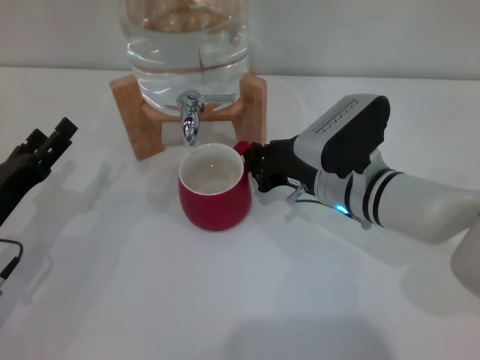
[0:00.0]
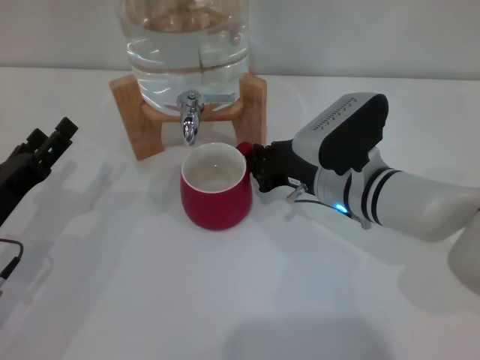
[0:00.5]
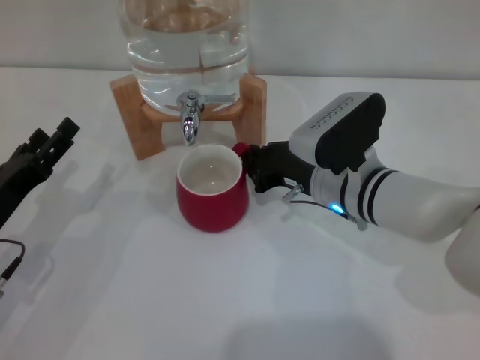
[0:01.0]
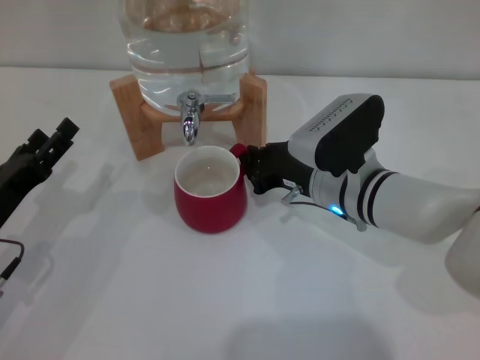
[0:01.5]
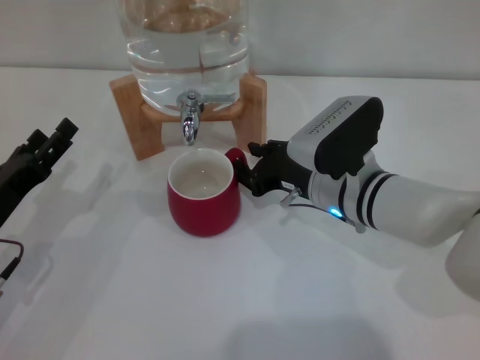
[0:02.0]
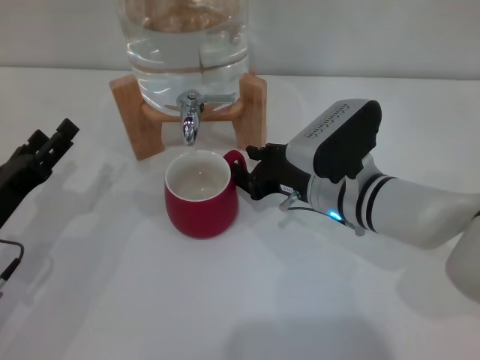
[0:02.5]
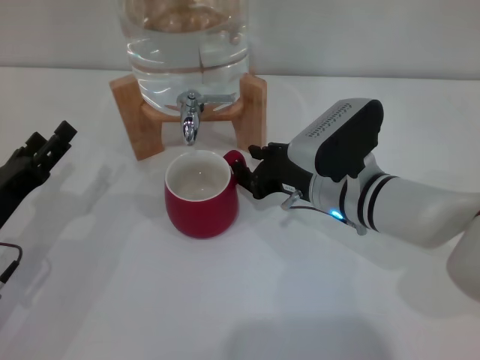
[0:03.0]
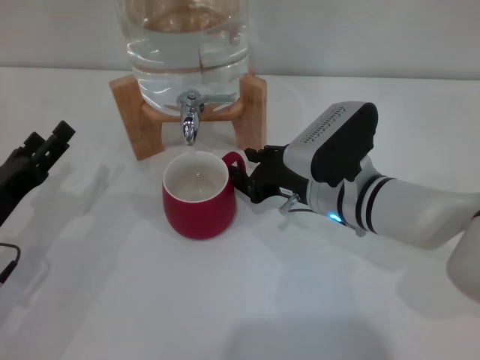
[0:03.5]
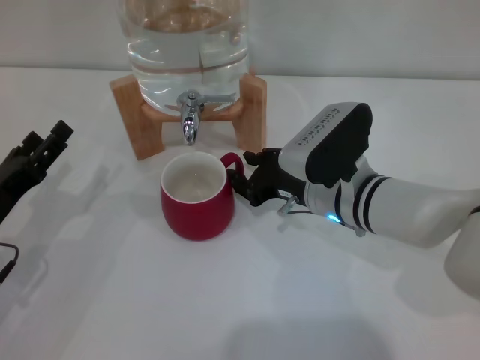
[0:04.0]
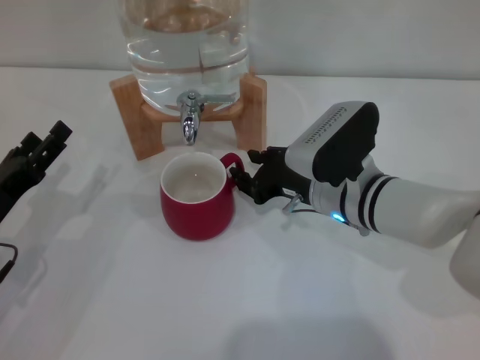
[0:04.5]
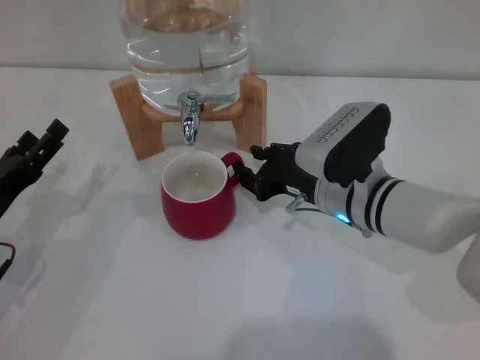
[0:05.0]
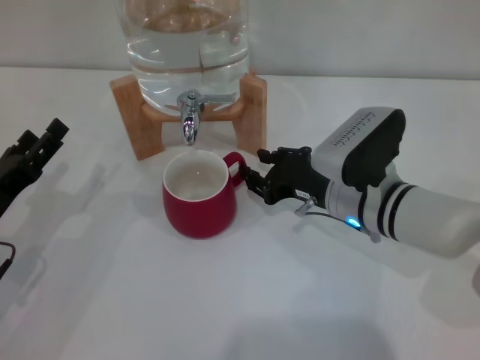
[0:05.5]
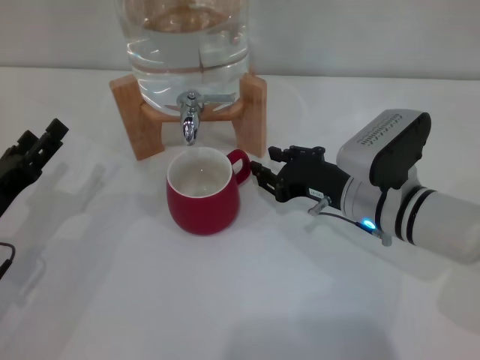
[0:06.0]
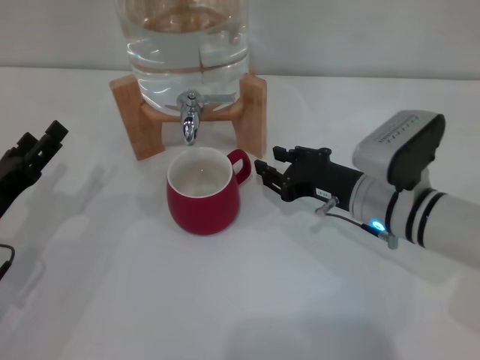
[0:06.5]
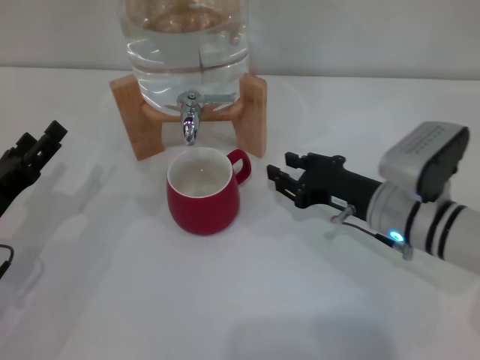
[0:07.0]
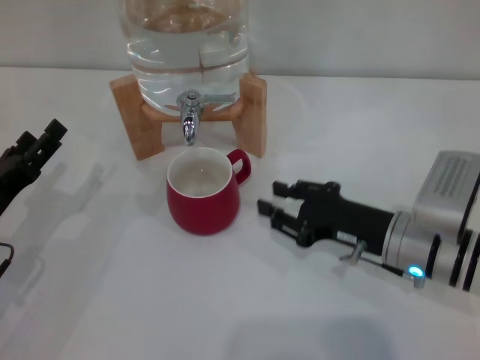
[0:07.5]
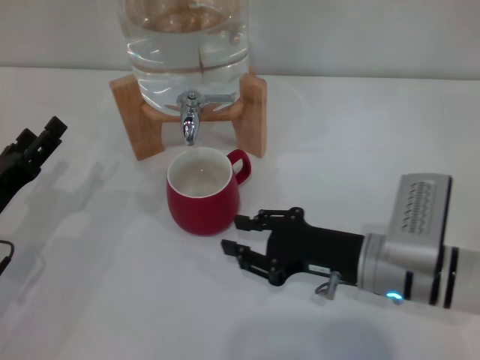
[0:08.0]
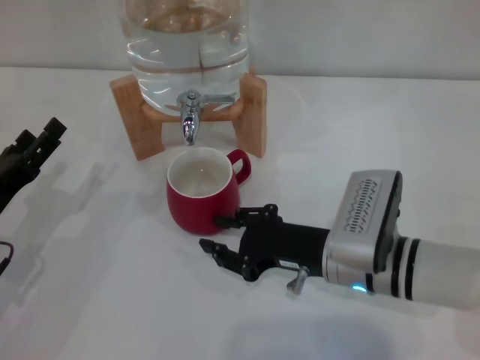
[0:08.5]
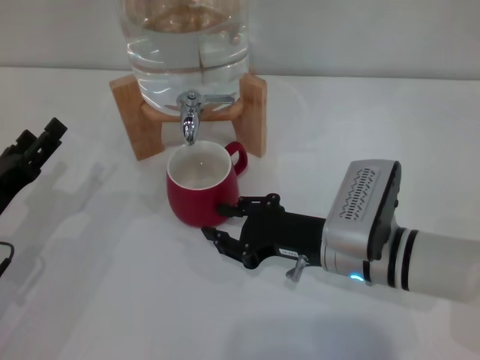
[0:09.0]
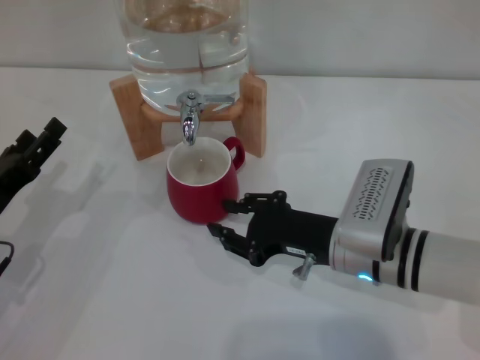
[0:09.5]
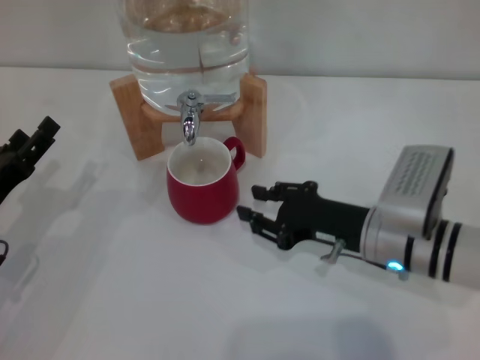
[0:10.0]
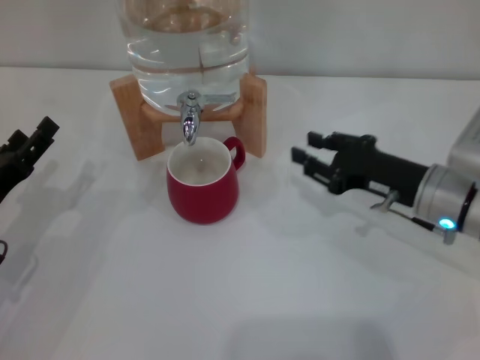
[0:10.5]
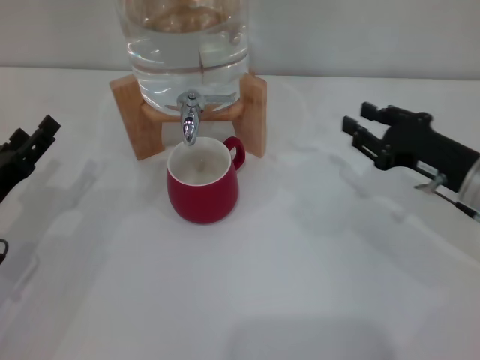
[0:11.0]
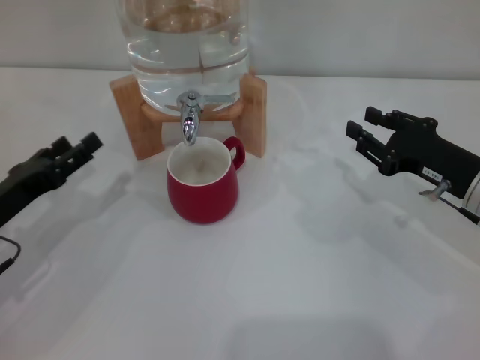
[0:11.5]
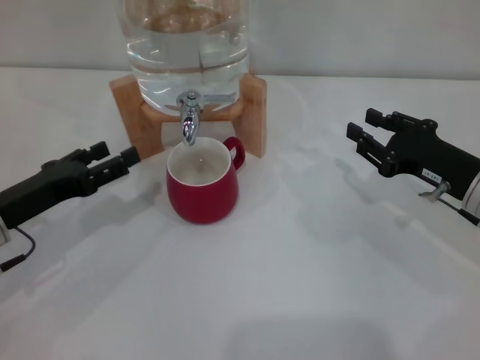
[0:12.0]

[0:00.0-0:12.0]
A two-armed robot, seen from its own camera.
Task of the whole recording: the right gripper pick up the red cup and place it horizontally under the faucet, the left gripper turn on the faucet to fill the cup, and then turn off the faucet.
Step, 0.0 to 6.0 s: Move the cup beneath the water dispenser nozzle with the right gripper.
0.0 to 4.0 s: Both grippers stay about where they are.
4.0 to 6.0 s: The grippers move only a little.
6.0 to 8.0 s: The right gripper shifts some 5 cm backward.
8.0 to 10.0 s: The grippers move only a little.
10.0 to 12.0 s: The right gripper goes some 10 cm to the right.

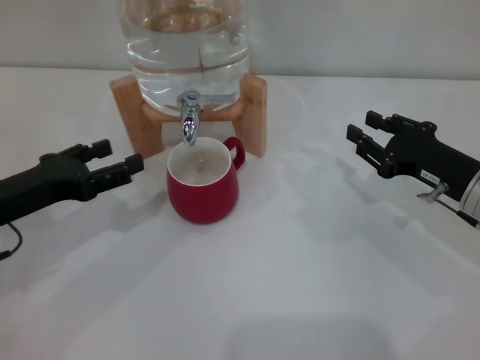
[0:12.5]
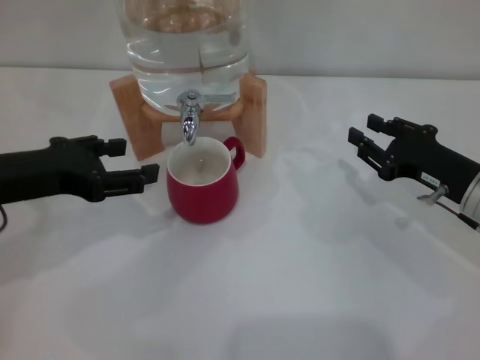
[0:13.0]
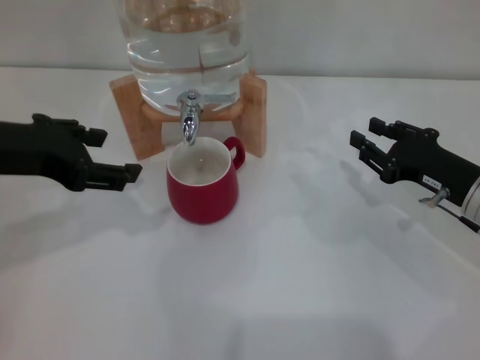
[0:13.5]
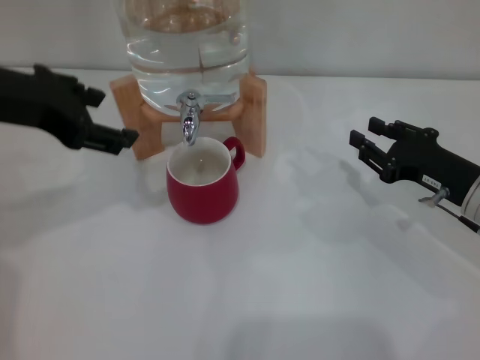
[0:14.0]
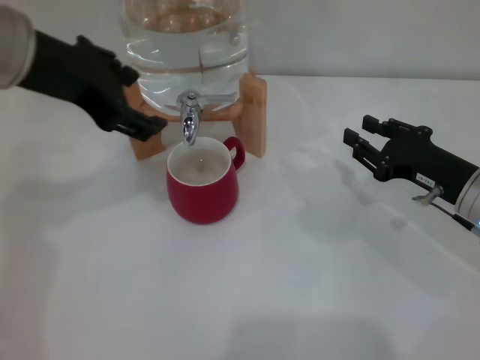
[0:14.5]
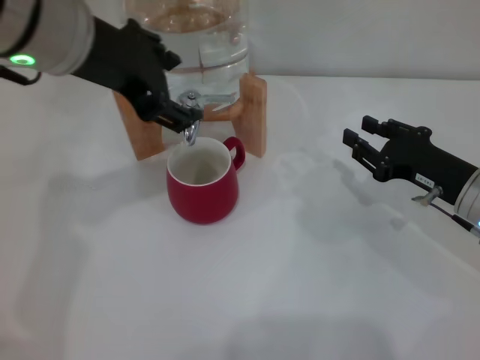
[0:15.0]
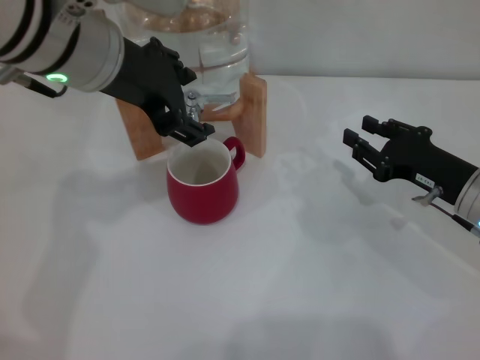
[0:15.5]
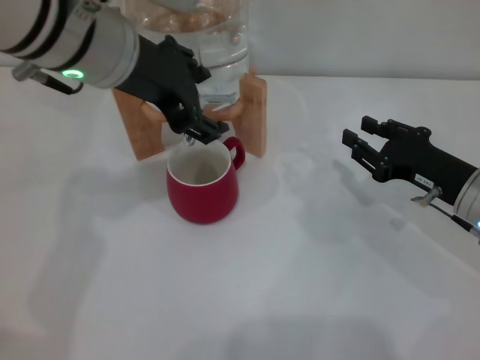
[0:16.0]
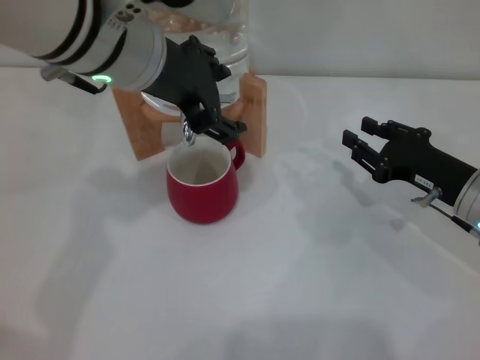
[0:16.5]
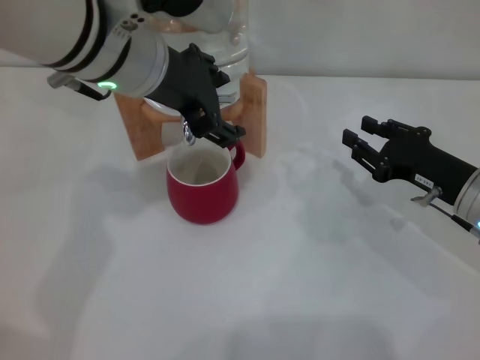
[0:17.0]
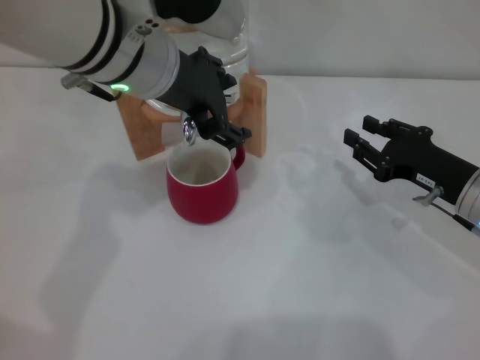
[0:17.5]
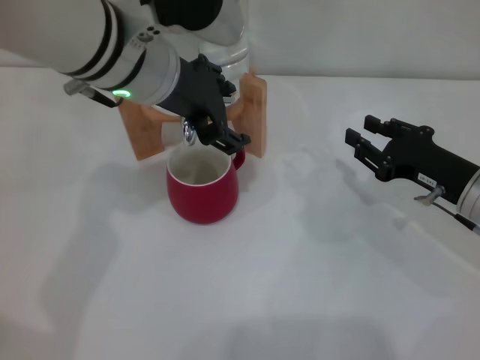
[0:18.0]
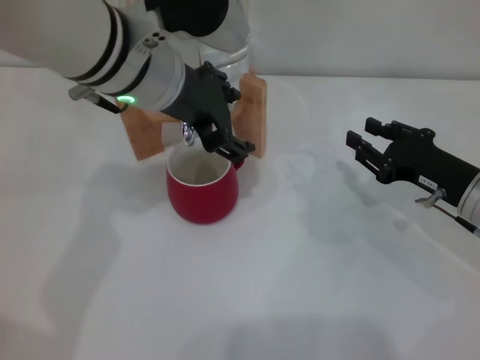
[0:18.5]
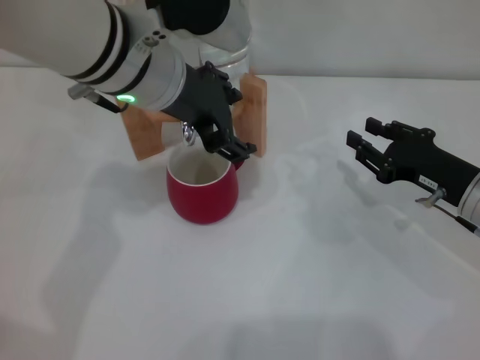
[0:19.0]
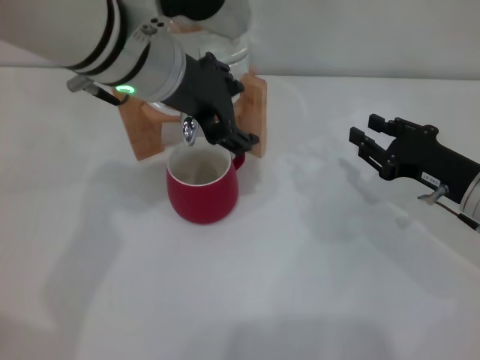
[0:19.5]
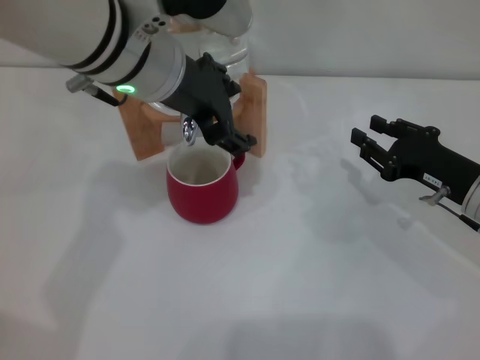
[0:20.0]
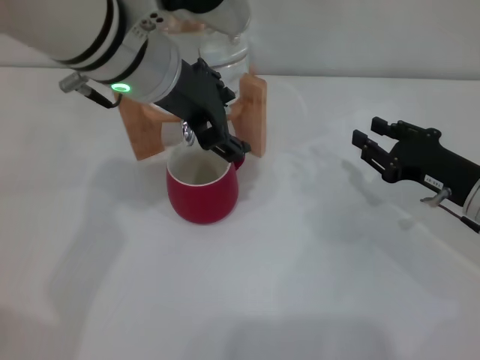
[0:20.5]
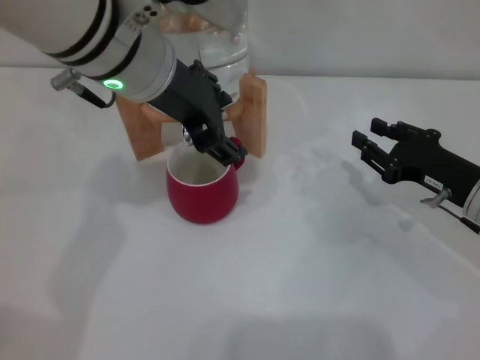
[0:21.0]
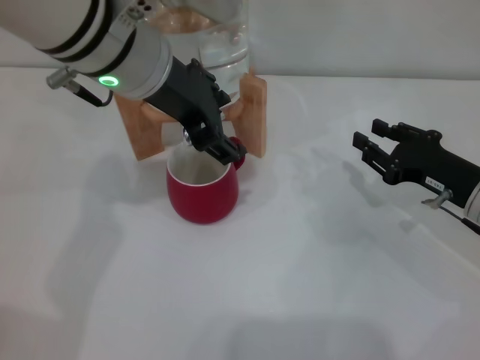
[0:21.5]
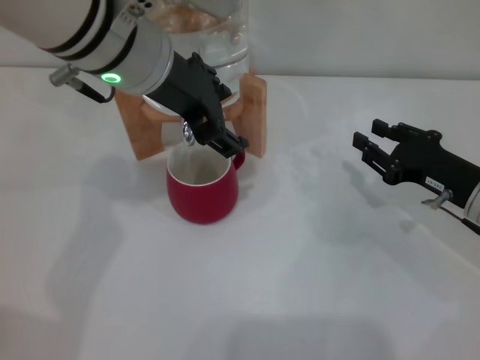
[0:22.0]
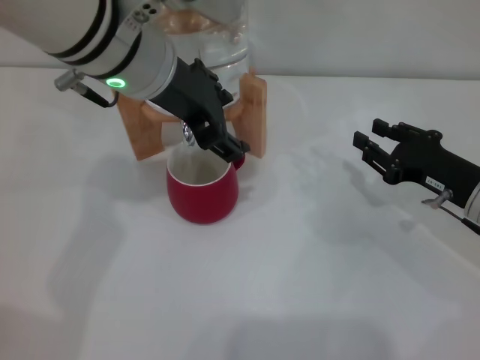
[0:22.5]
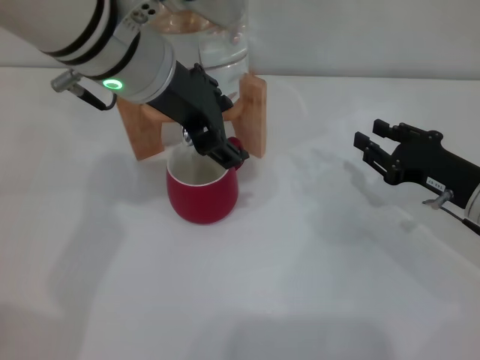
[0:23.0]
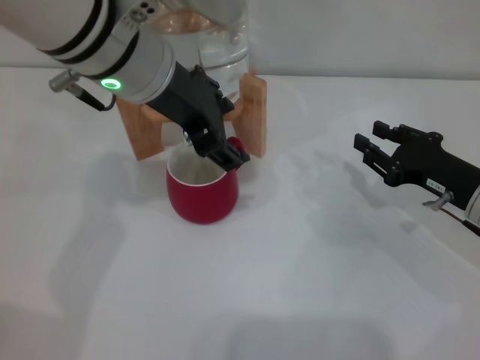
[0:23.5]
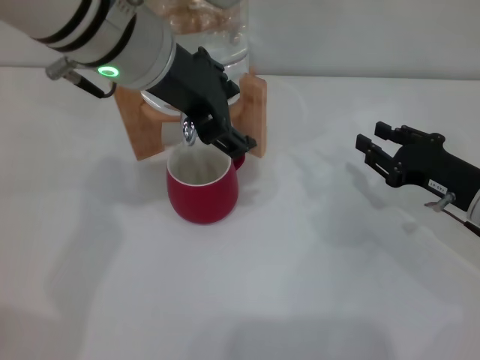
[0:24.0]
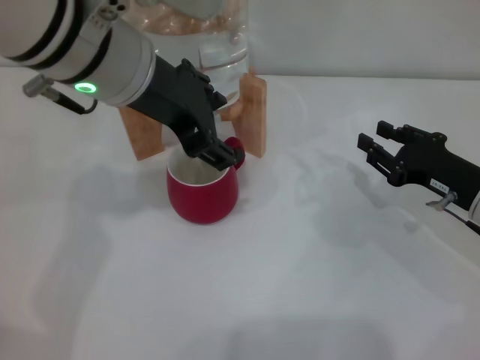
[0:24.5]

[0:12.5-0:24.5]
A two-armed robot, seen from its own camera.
Task of the whole recording: the right gripper pick up the red cup and place it horizontally under the faucet, the left gripper turn on the faucet to fill the cup, and then turn off the faucet.
Step, 12.5 to 22.0 s: Open the dispenser valve and fill the cup with water with the left gripper.
12.5 to 14.5 s: The left gripper goes about 20 cm upward and to the right.
14.5 to 16.5 s: The left gripper moves to the right, approximately 10 cm.
16.5 to 20.5 s: The grippers move only a little.
20.5 to 22.5 s: The two grippers keep their place.
22.5 to 24.5 s: The grippers make only small movements.

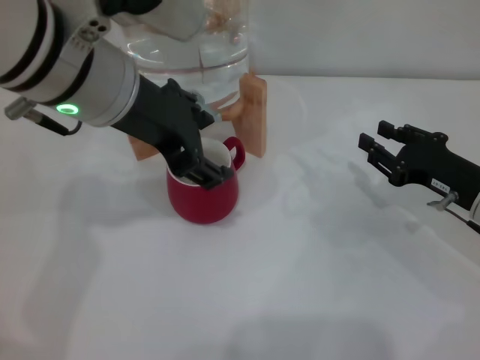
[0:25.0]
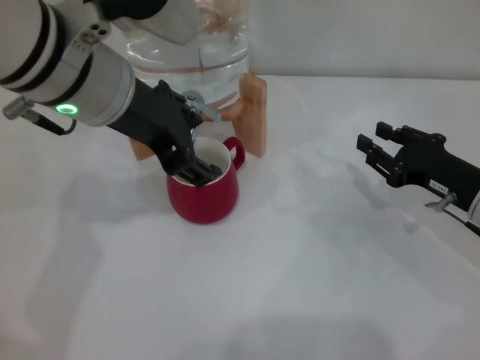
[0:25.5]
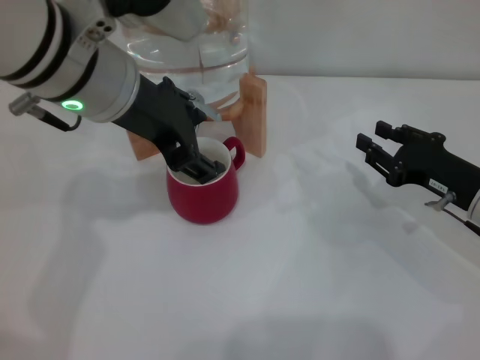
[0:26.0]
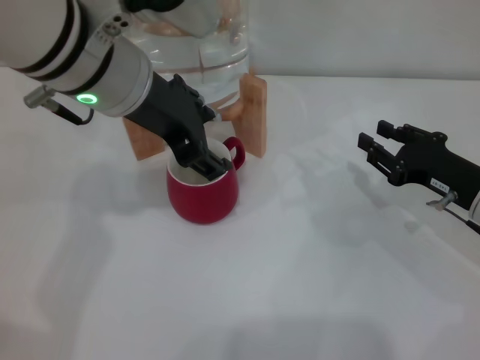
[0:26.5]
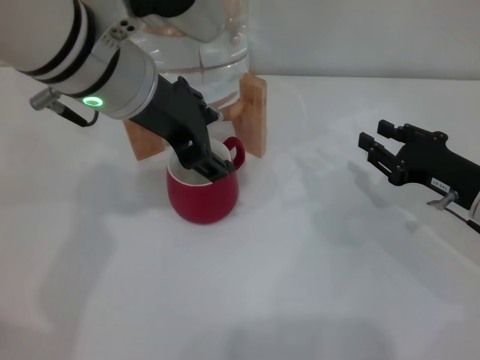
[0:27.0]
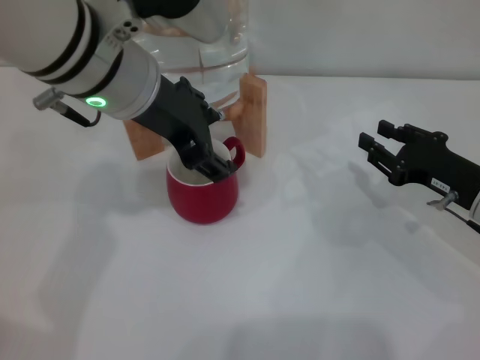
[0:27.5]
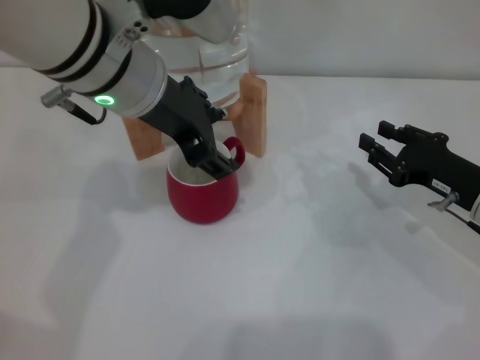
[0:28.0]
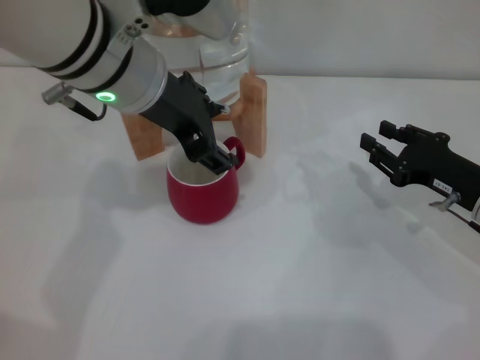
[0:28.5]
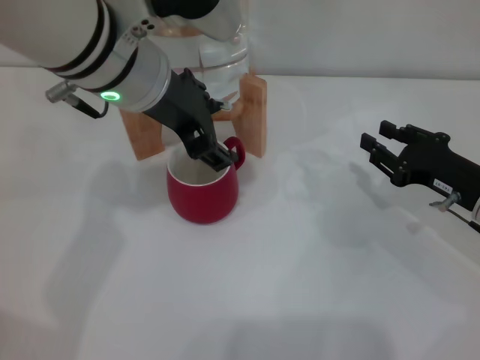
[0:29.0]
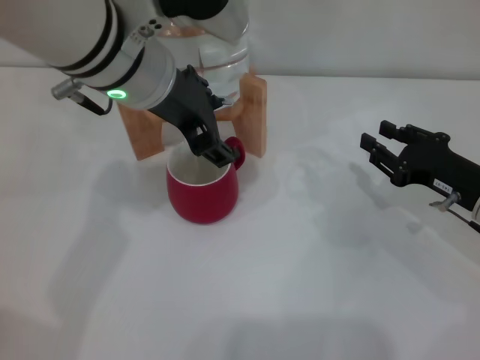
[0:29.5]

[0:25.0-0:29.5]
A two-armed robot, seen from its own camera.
Task of the whole recording: the right gripper pick up the red cup and place it horizontally under the faucet, the left gripper turn on the faucet to fill the cup, and then turn off the faucet.
25.0 to 29.5 s: The grippers move only a little.
